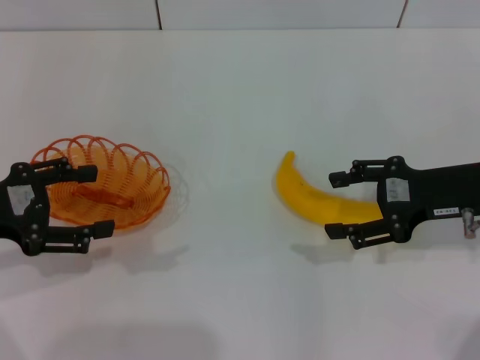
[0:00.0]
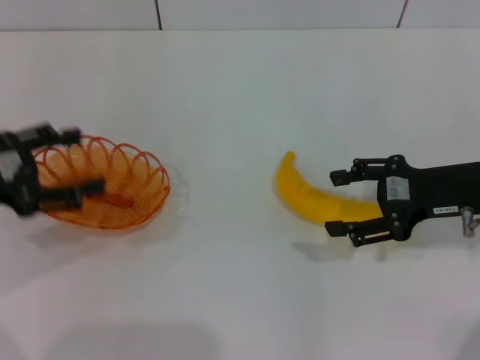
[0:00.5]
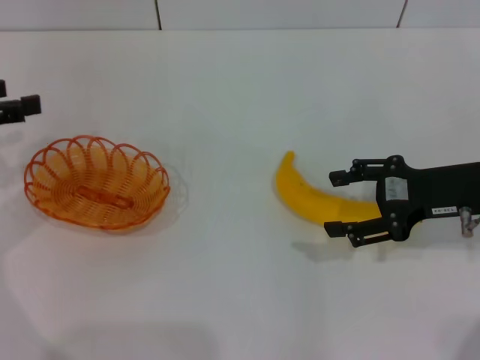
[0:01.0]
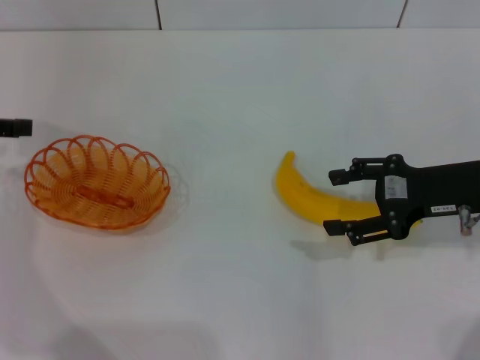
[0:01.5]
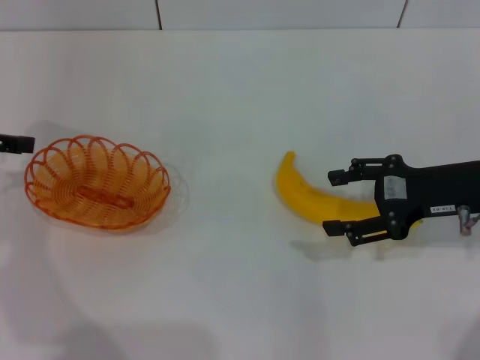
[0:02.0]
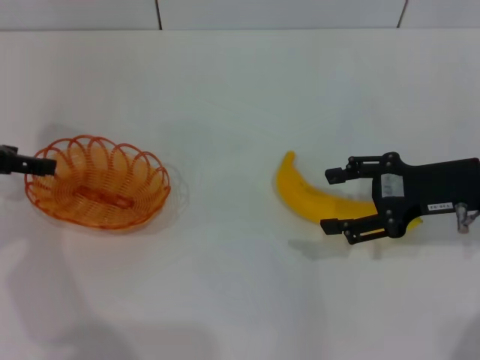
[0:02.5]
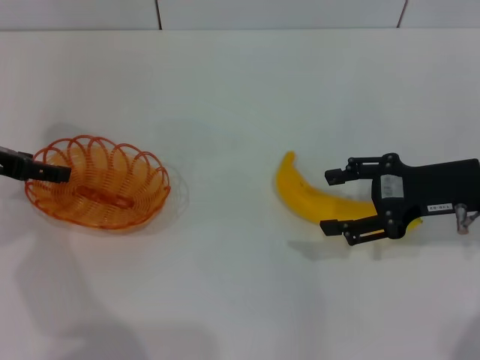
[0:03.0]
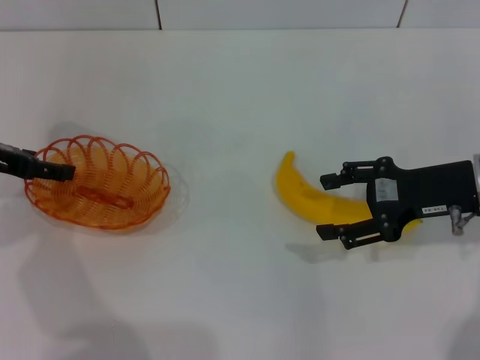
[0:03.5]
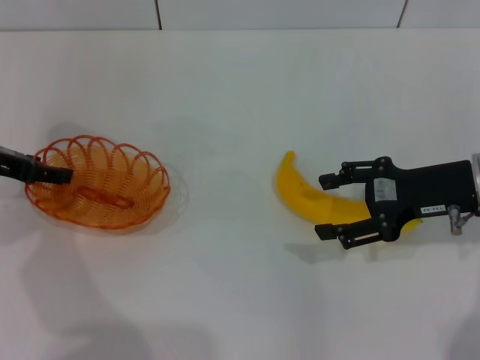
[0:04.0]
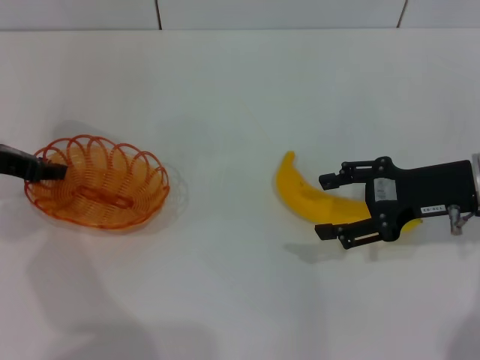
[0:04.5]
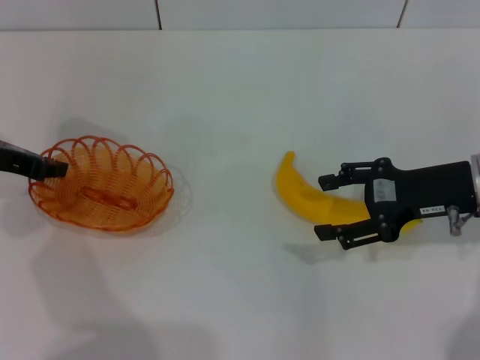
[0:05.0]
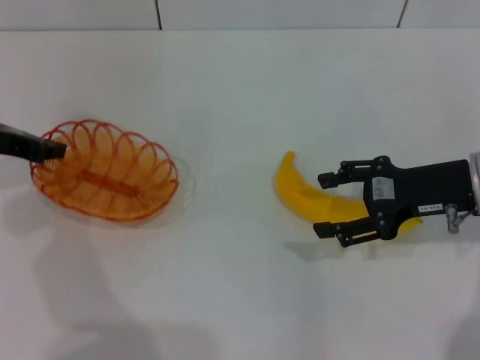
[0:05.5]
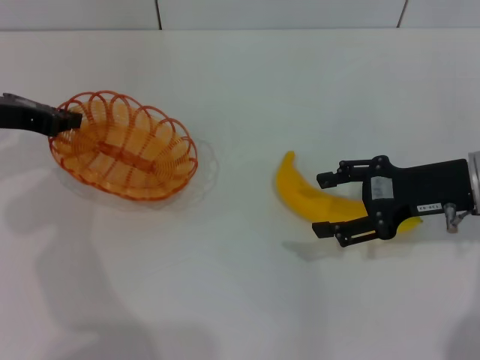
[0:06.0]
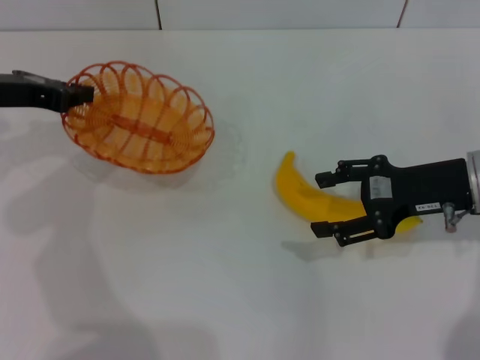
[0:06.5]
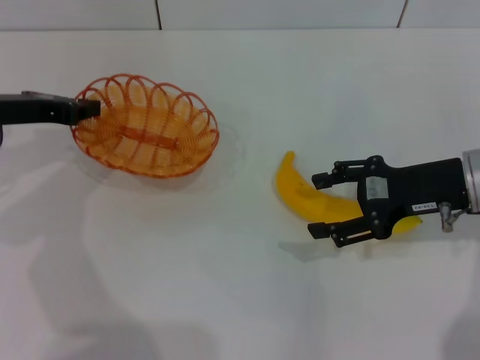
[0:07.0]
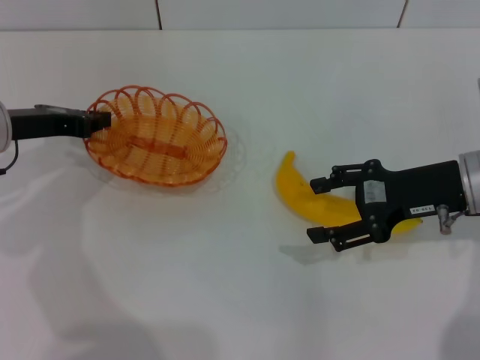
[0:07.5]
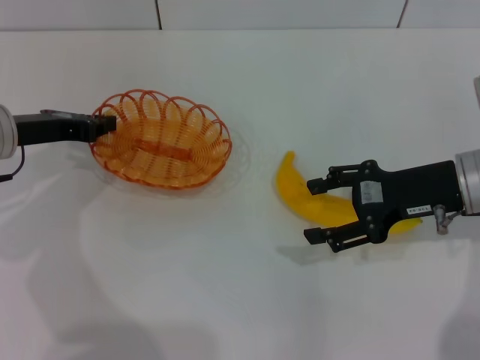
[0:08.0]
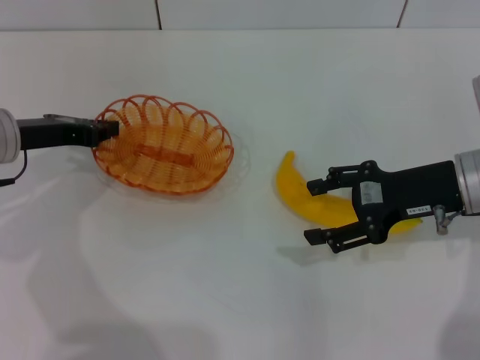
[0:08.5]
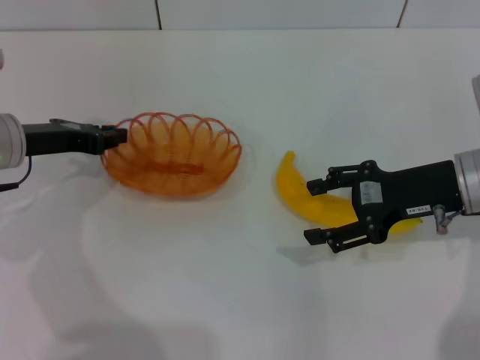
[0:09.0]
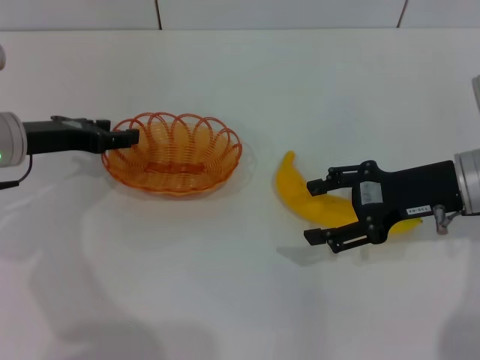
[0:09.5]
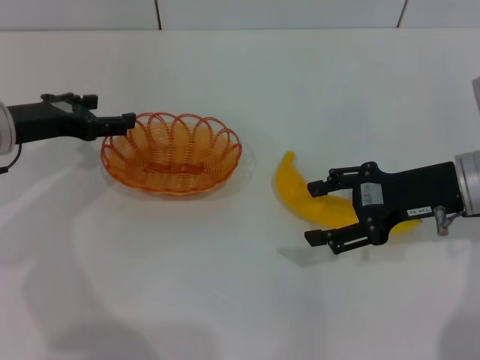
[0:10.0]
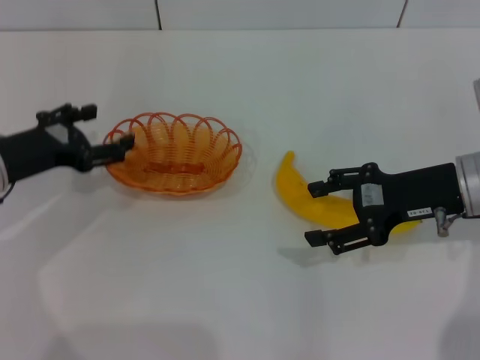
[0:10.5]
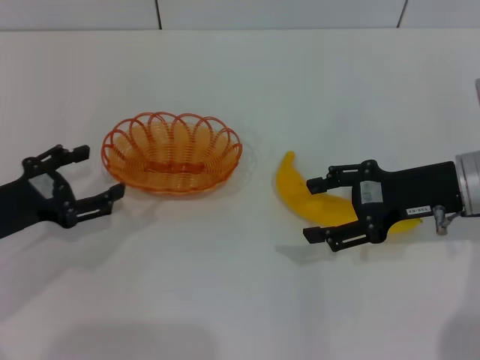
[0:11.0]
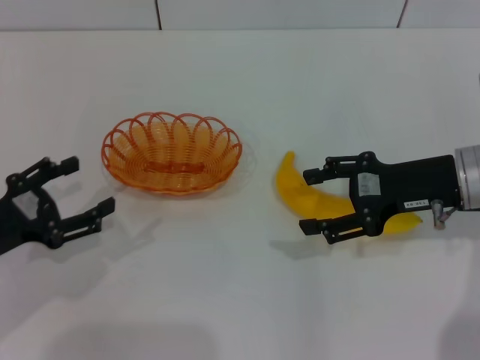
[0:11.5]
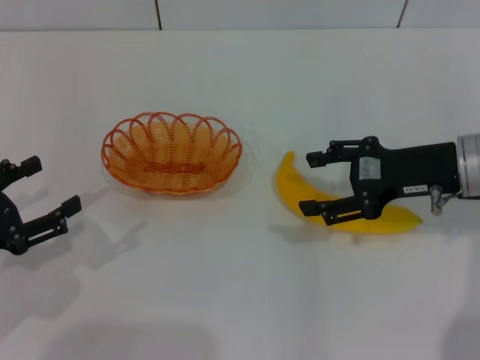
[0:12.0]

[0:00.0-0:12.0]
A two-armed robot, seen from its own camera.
Step, 0:00.0 to 0:06.0: Pick up the basket with the left gripper.
Step, 0:07.0 to 0:10.0: Place the basket in the center of view with the left gripper.
0:00.0 to 0:02.0: The left gripper travels forward by some 10 cm.
0:02.0 to 0:04.0: The left gripper shifts by some 5 cm.
0:04.0 to 0:06.0: The left gripper closes.
0:06.0 to 0:08.0: The left gripper shifts by roughly 5 cm.
0:08.0 to 0:10.0: The left gripper opens up.
0:10.0 to 0:12.0: The left gripper travels backward by roughly 15 cm.

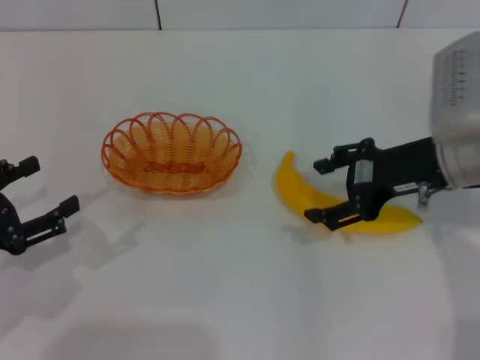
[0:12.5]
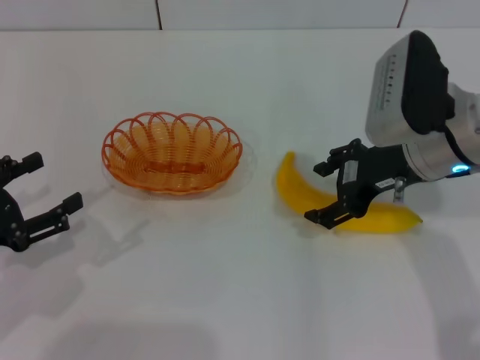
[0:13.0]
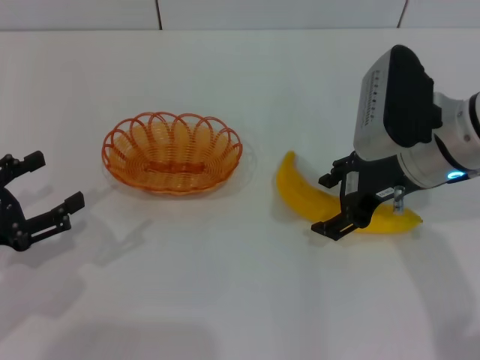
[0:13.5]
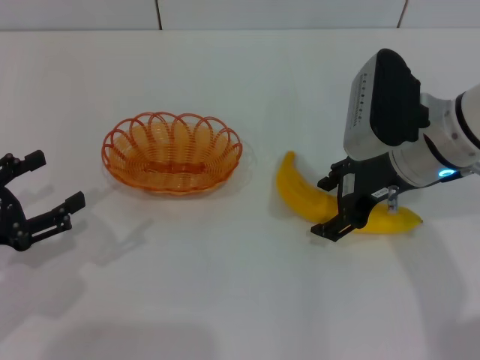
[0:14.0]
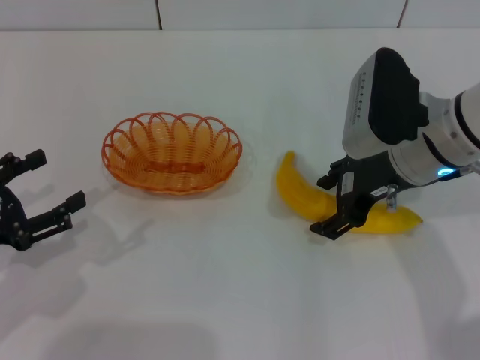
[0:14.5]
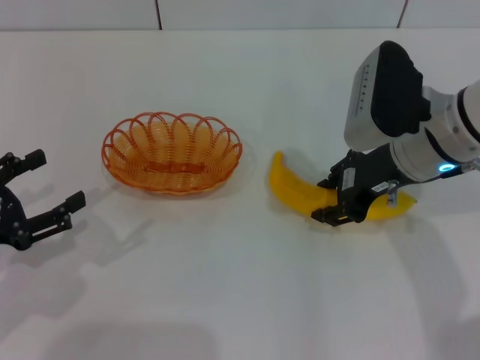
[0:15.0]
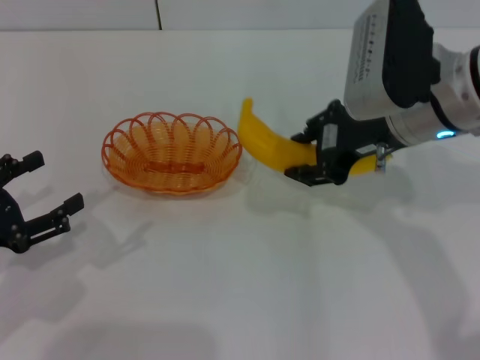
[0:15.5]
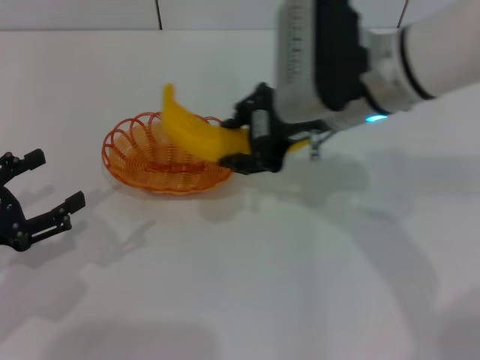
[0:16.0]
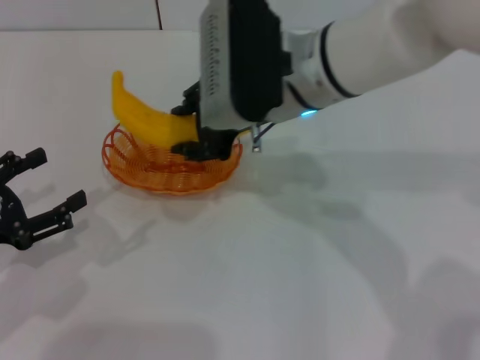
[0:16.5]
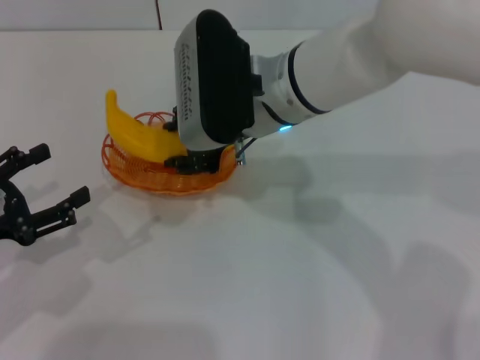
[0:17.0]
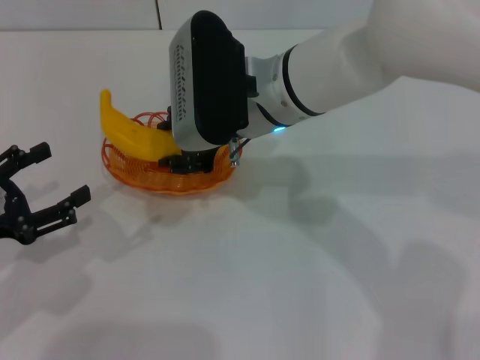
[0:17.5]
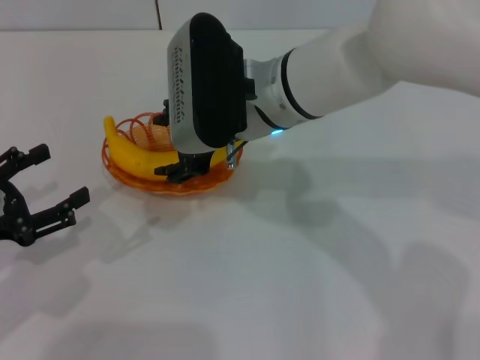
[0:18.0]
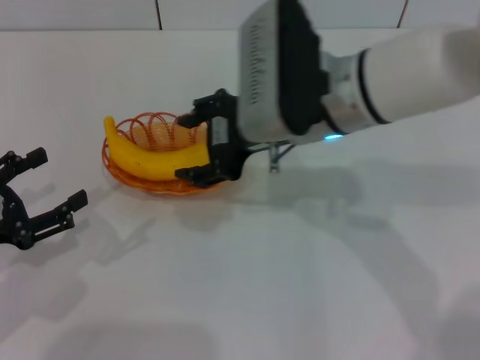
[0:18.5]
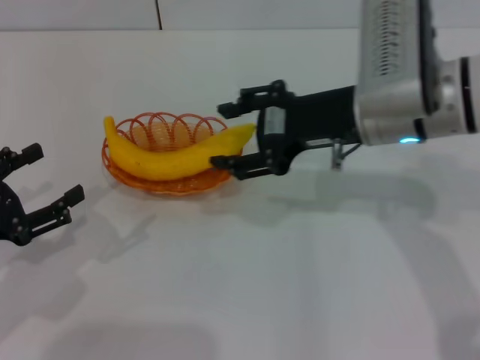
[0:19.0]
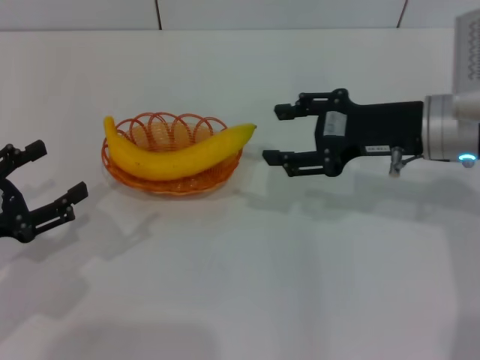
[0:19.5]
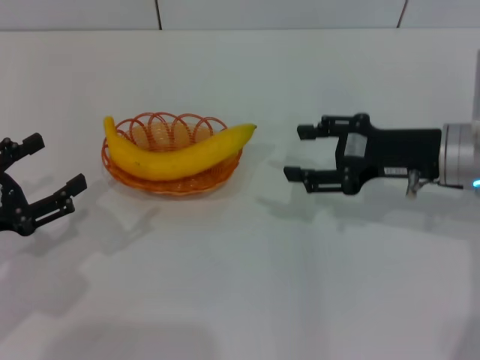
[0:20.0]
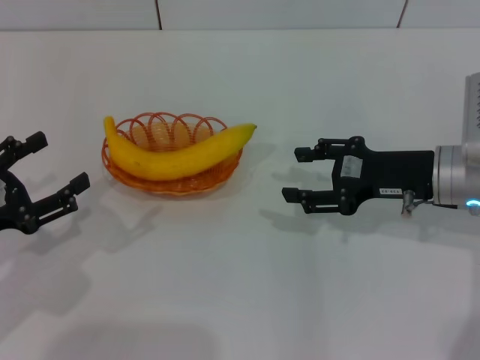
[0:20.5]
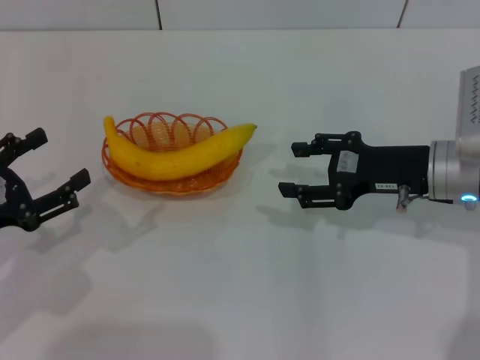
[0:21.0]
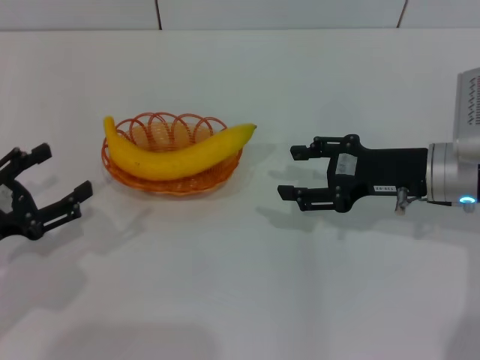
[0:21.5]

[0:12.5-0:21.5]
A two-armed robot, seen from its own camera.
Step, 0:12.5 to 0:15.5: Pick up the banana with the right gripper.
Step, 0:16.0 to 0:18.5: Place the banana into the basket with the right gripper.
0:12.5 to 0:14.5: The grippers stay close to where they were, moving slightly.
0:14.5 to 0:17.0: The right gripper shifts some 15 cm to the left, and closes up.
0:17.0 to 0:19.5: The right gripper is displaced to the right by roughly 20 cm, and opens.
0:19.5 to 0:21.5: The right gripper shifts some 5 cm downward.

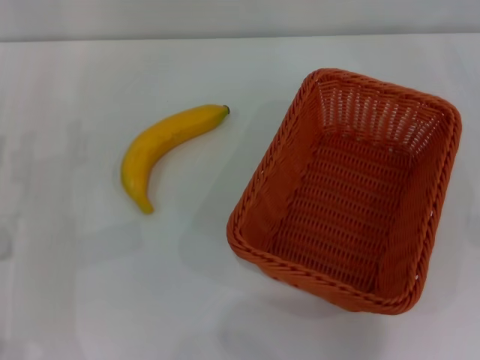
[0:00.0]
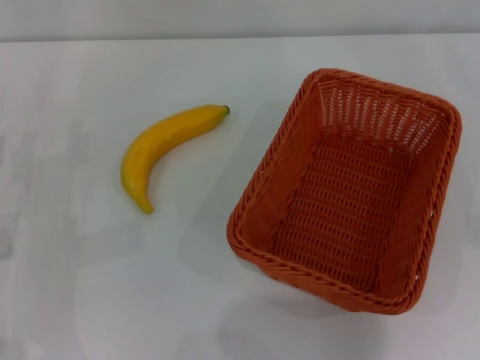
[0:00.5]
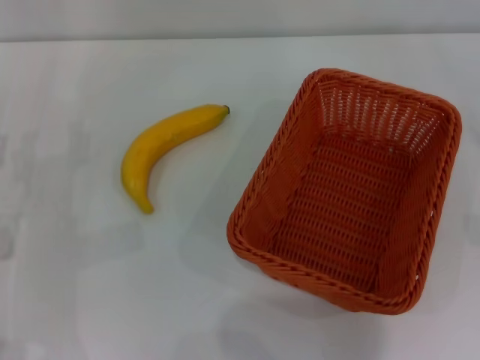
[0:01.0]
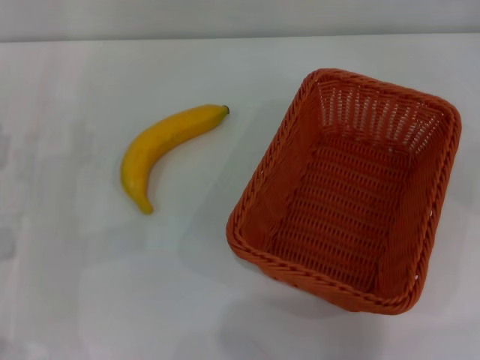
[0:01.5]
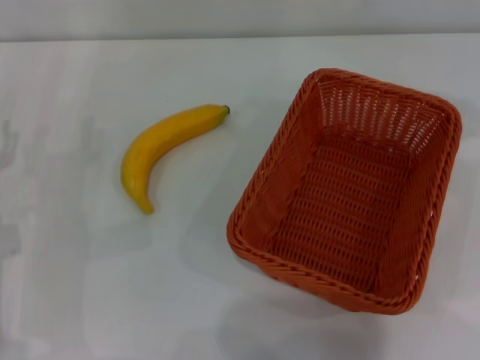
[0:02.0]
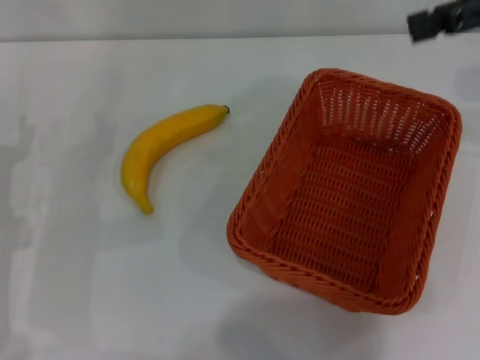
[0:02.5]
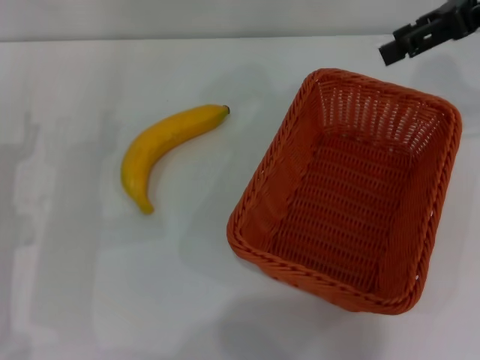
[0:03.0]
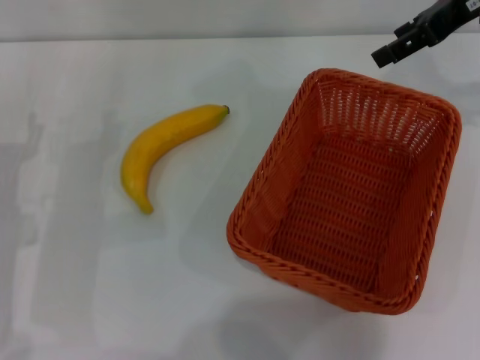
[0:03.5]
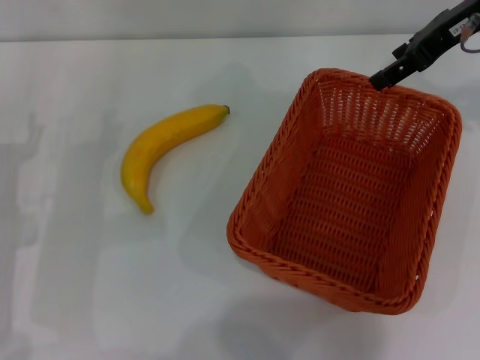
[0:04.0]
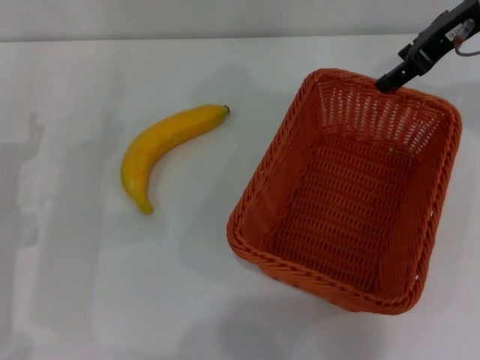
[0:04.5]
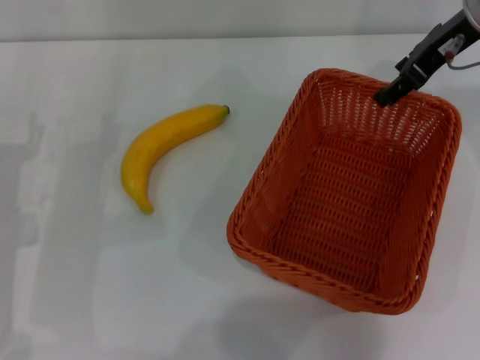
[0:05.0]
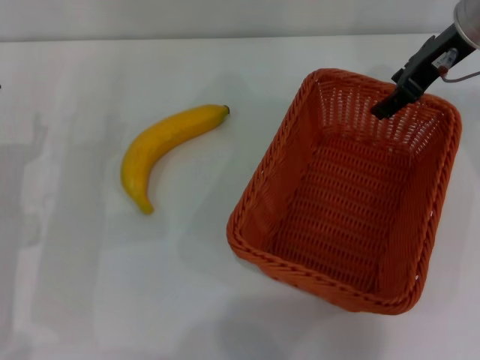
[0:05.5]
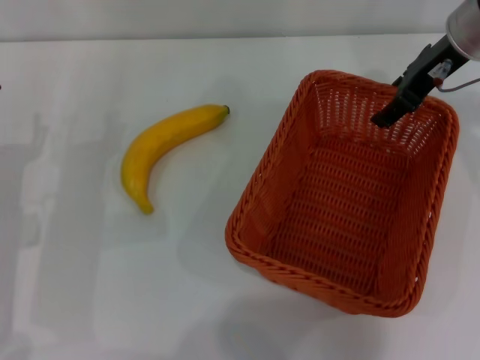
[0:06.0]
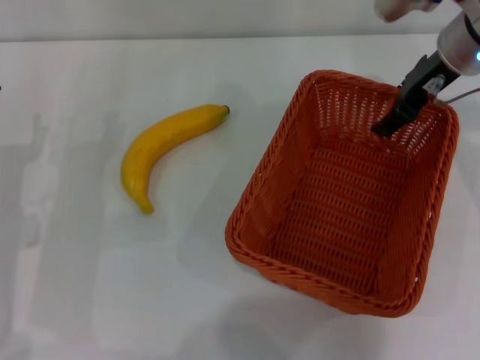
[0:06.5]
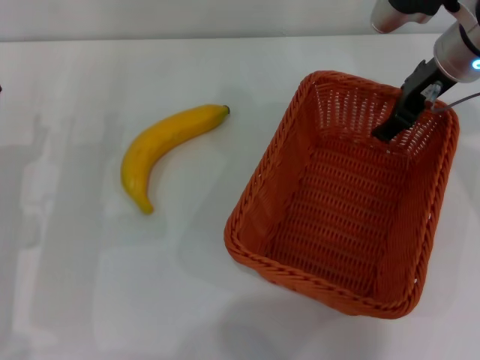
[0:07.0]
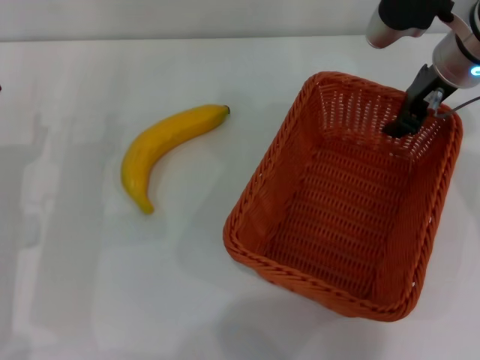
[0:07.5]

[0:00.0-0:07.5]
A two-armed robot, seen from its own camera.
0:02.0 to 0:04.0: The right gripper goes approximately 15 cm to the left and forward.
0:04.0 to 0:05.5: There are only small adjustments of the grippers.
0:05.5 to 0:07.5: The right gripper closes its fingers.
